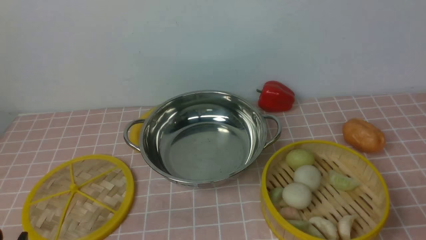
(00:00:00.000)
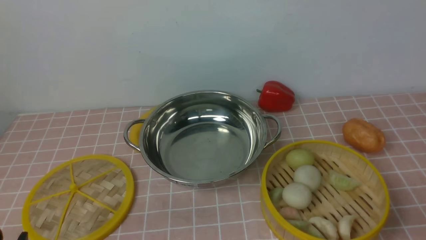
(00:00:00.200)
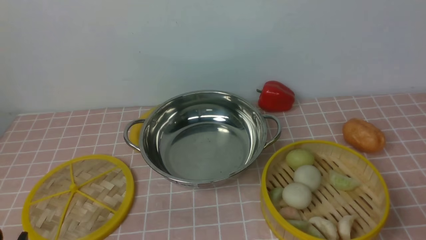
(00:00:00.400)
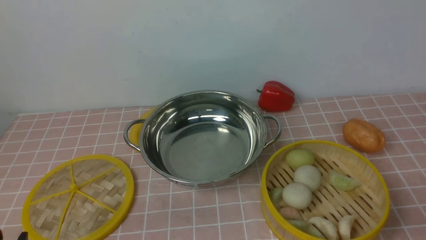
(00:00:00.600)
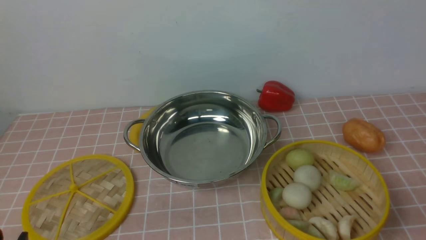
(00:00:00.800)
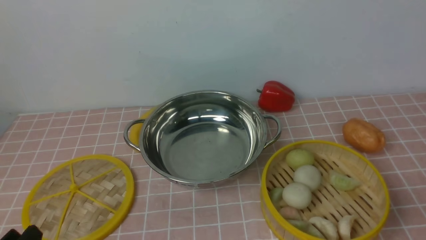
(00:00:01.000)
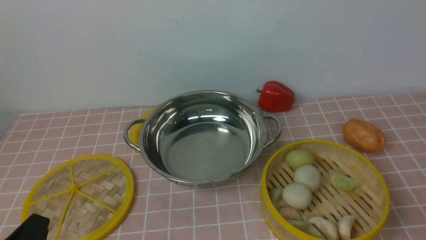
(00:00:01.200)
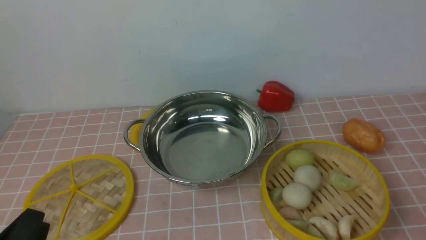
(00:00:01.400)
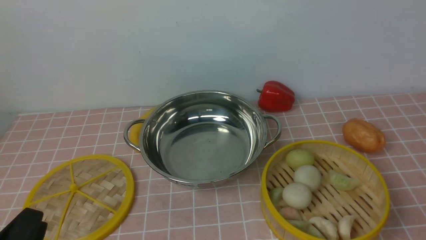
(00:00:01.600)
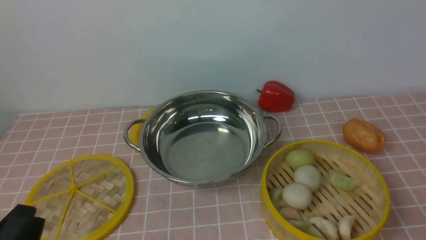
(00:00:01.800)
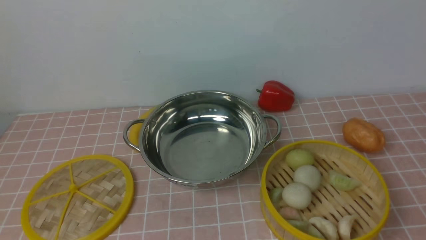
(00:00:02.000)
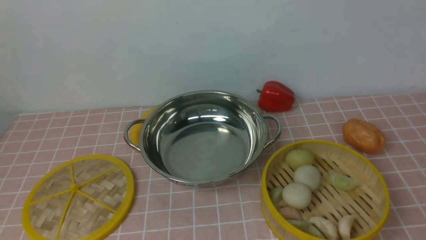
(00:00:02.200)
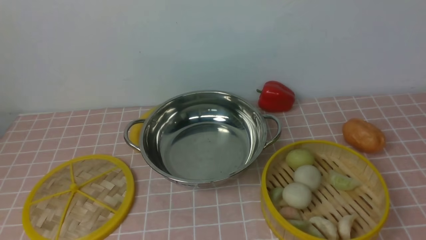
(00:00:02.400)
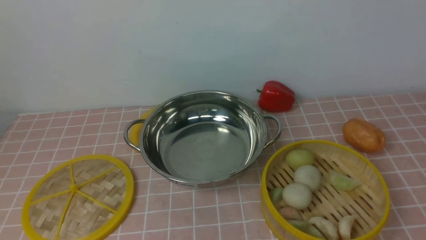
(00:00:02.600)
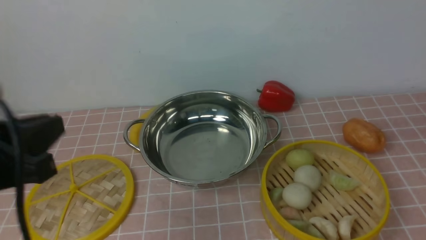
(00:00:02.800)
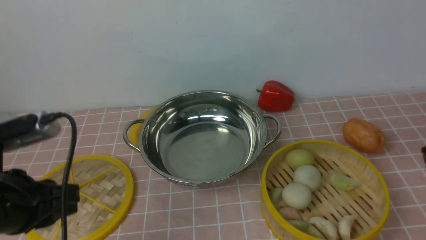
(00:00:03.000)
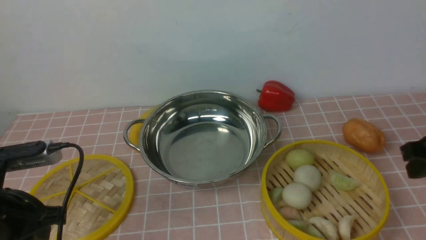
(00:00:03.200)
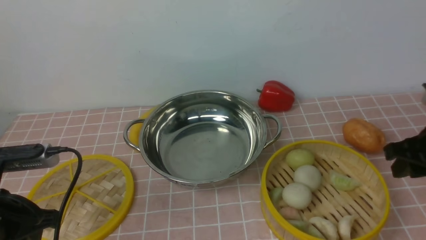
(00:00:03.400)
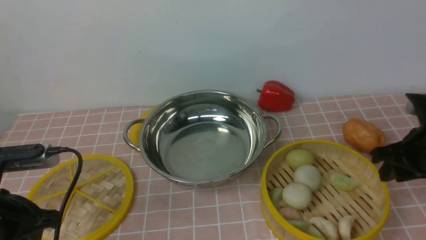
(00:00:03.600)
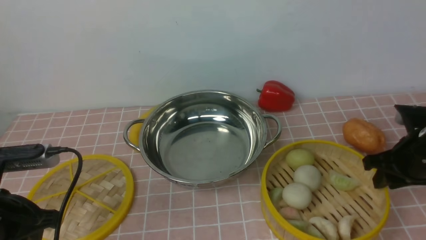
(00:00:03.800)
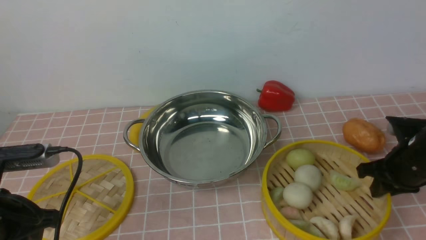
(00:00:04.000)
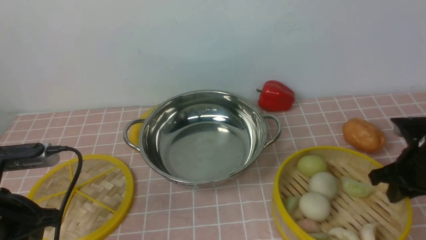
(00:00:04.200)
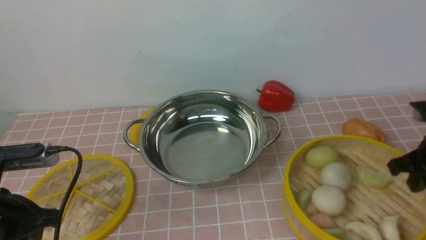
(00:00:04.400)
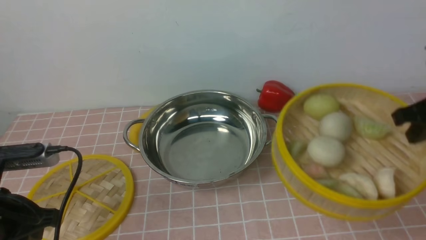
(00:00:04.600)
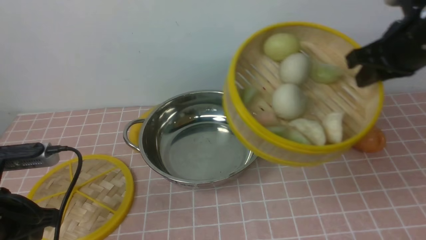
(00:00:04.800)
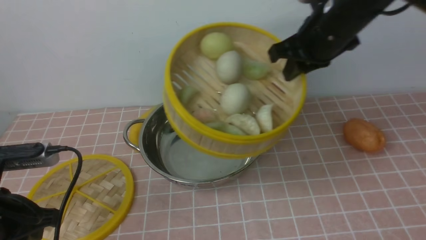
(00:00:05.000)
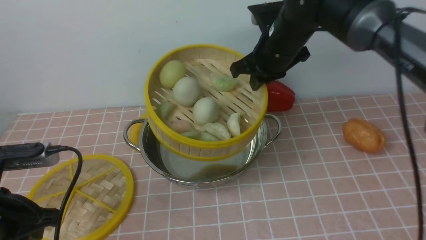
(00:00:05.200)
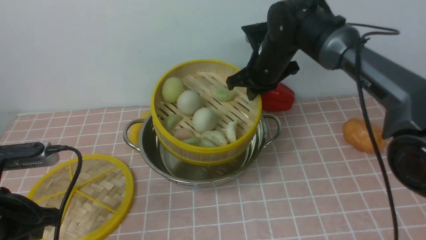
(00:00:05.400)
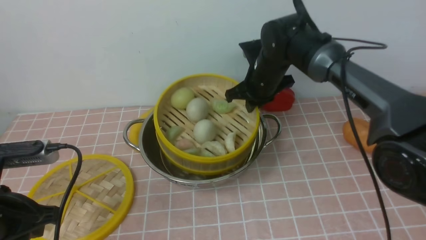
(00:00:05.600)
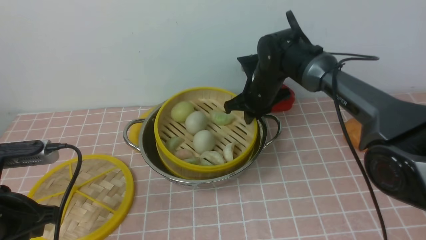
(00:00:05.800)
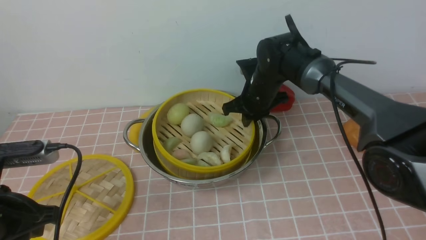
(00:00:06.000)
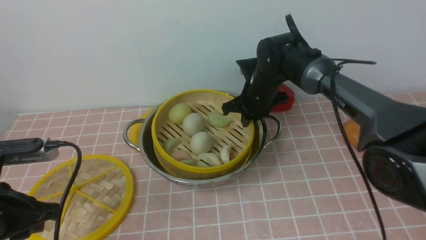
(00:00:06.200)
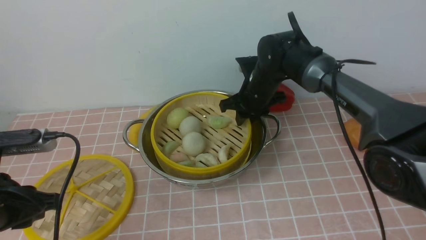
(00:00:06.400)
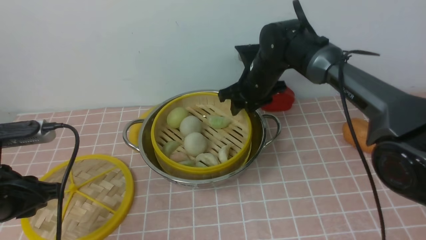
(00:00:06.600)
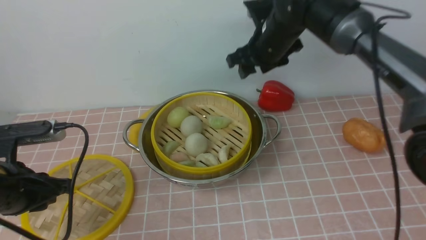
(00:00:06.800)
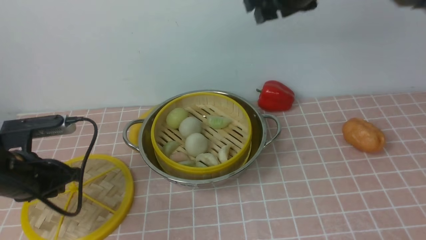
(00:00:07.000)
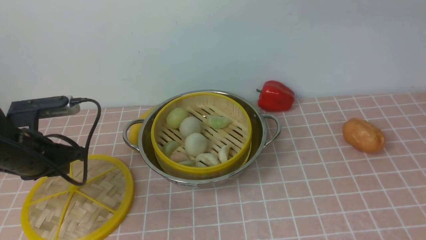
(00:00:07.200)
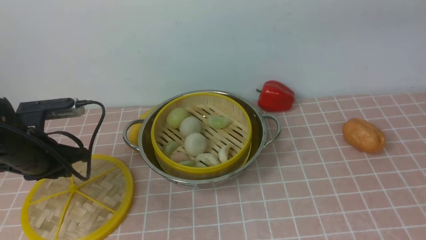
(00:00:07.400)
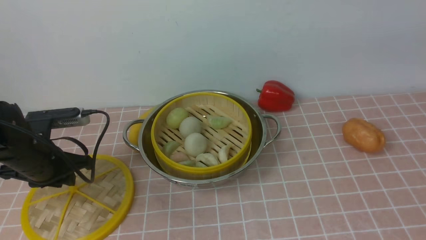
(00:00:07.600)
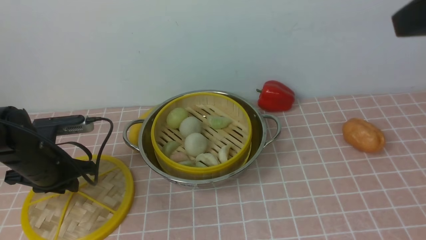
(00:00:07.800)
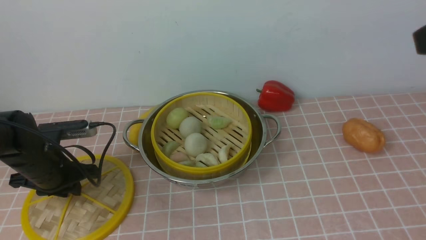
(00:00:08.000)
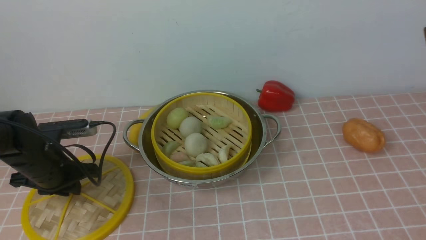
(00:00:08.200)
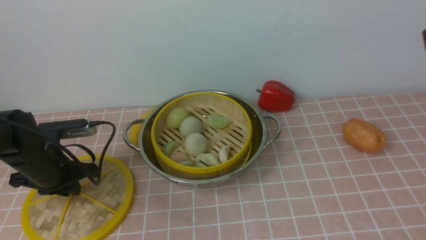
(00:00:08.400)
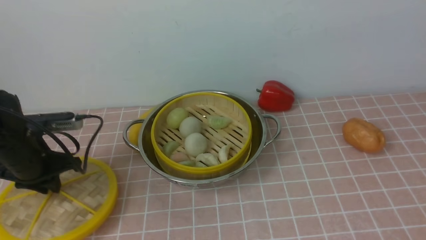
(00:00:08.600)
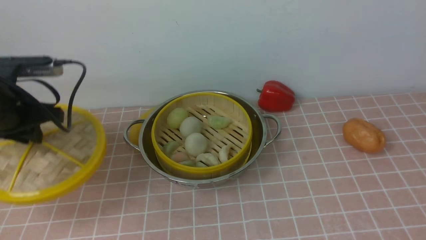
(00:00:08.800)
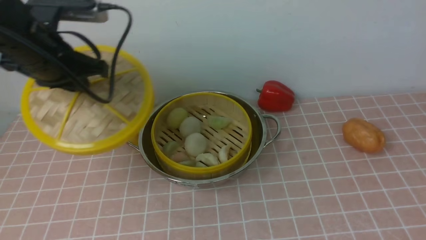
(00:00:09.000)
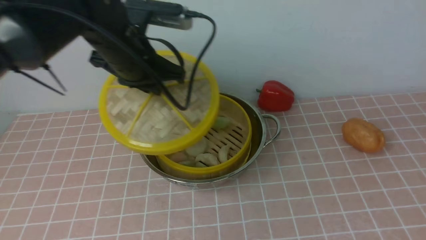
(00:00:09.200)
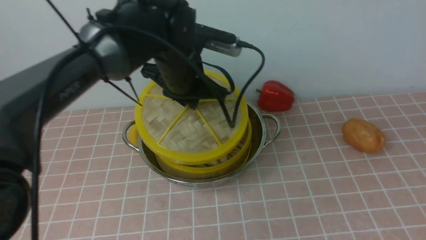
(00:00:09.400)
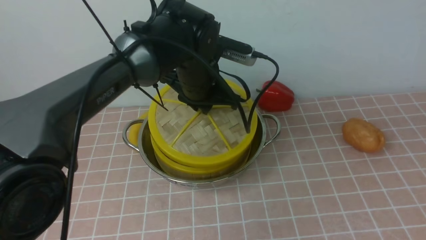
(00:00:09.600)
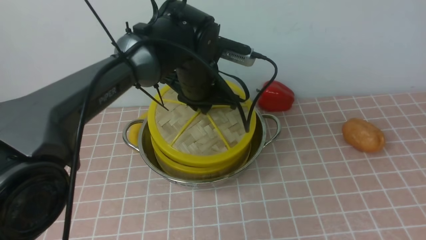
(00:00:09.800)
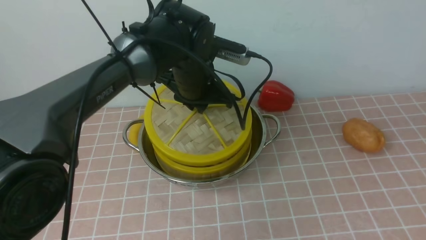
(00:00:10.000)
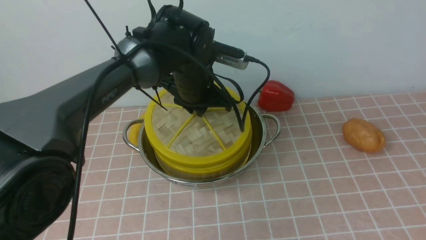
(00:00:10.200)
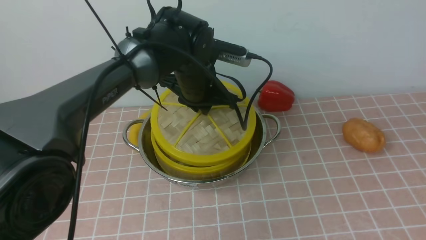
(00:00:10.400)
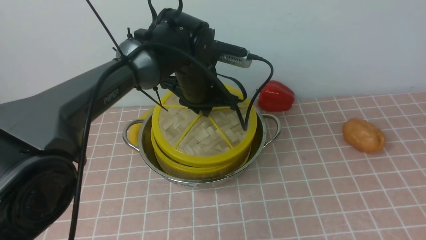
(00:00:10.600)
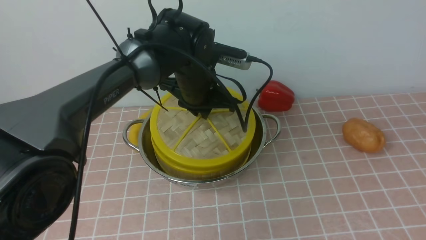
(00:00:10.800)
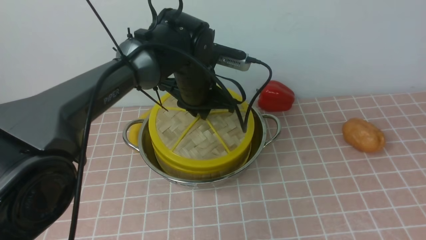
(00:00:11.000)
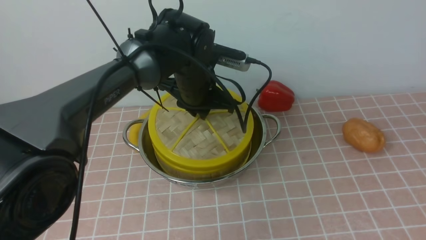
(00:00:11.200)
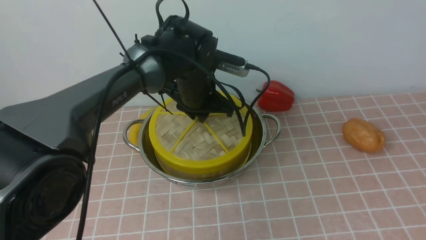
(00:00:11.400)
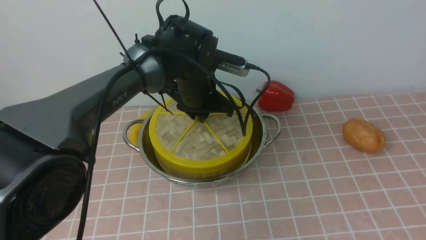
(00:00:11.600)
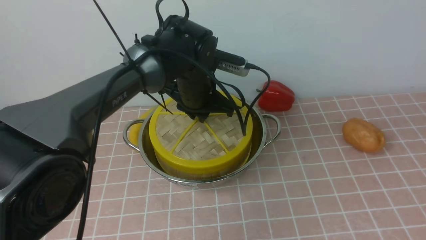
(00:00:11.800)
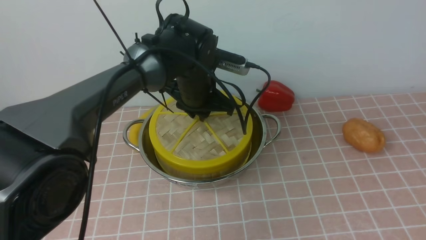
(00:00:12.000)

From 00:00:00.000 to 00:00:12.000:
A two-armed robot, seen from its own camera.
Task of the whole recording: place the steamer in the pot on the pink tablecloth, and put the lid on the steamer.
Step, from 00:00:00.000 to 00:00:04.200: use the right arm to lift the steamer closest to it.
Step, from 00:00:04.400 to 00:00:06.400: use the right arm to put the steamer into the iron steamer pot in the middle.
Step, from 00:00:06.800 to 00:00:08.400: use the left arm to lift the lid of the steamer.
From 00:00:01.600 to 00:00:03.000: The left gripper moves forward and upward, some 15 cm.
From 00:00:03.000 to 00:00:04.400: The right gripper heads downward and forward, covering approximately 15 cm, and closes, while the left gripper heads downward, covering about 5 cm.
From 00:00:04.400 to 00:00:06.000: The right gripper moves to the left and forward, some 30 cm.
From 00:00:06.000 to 00:00:07.600: The left gripper goes some 15 cm forward and downward, while the right gripper goes roughly 40 cm upward, backward and to the right, and opens its fingers.
From 00:00:07.600 to 00:00:09.000: The left gripper shifts roughly 10 cm upward, while the right gripper travels backward and to the right by approximately 15 cm.
From 00:00:09.000 to 00:00:10.400: The right gripper moves roughly 5 cm, while the left gripper goes roughly 20 cm to the right.
From 00:00:10.400 to 00:00:12.000: There are only small adjustments of the grippers.

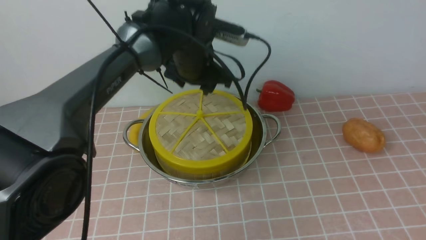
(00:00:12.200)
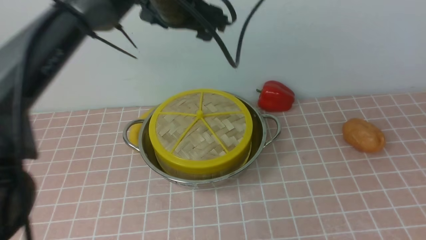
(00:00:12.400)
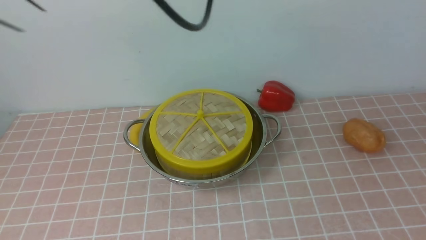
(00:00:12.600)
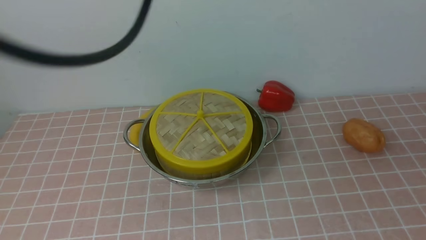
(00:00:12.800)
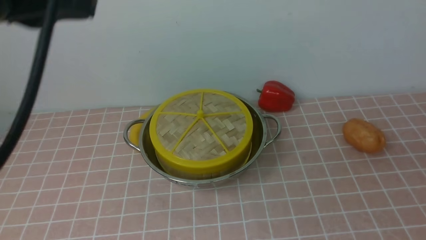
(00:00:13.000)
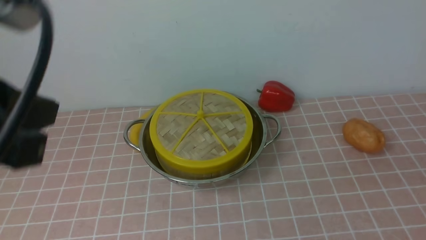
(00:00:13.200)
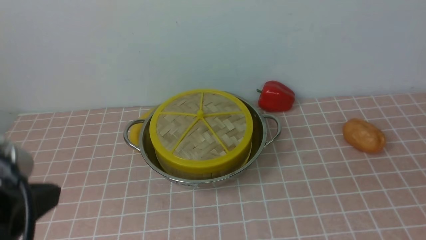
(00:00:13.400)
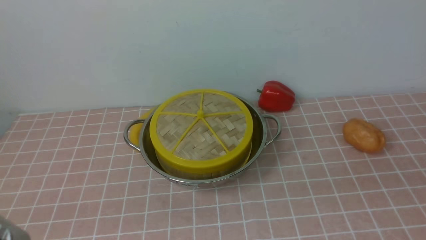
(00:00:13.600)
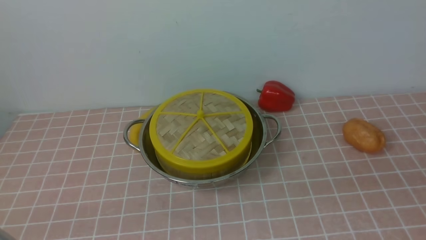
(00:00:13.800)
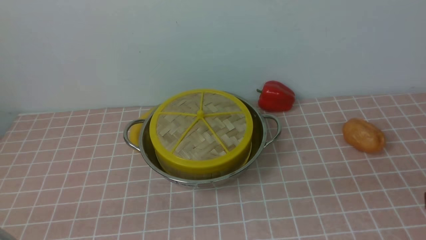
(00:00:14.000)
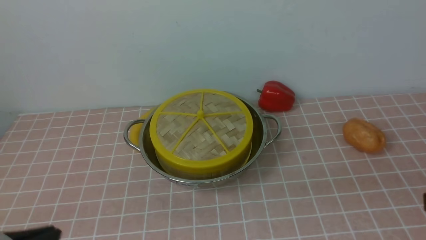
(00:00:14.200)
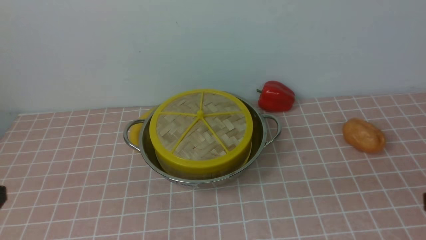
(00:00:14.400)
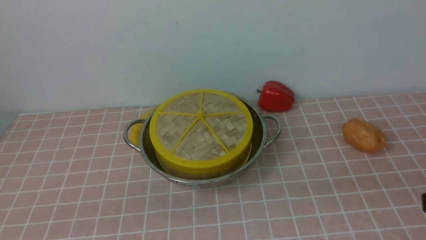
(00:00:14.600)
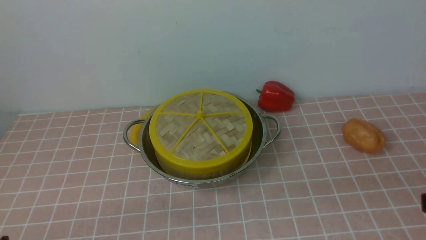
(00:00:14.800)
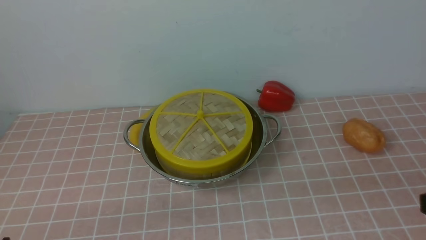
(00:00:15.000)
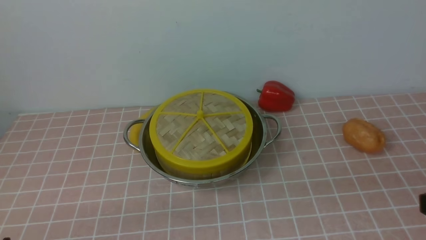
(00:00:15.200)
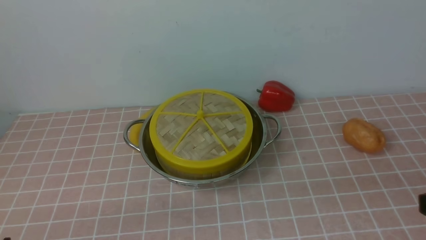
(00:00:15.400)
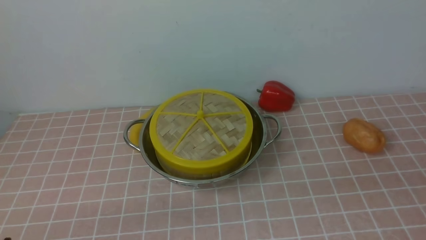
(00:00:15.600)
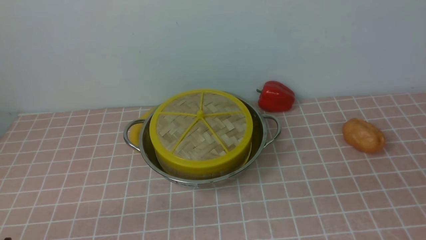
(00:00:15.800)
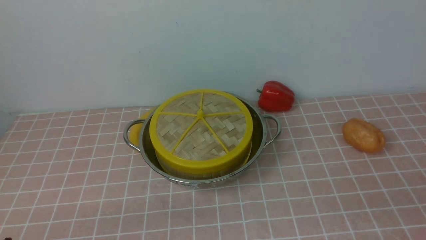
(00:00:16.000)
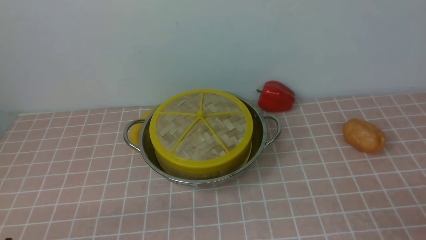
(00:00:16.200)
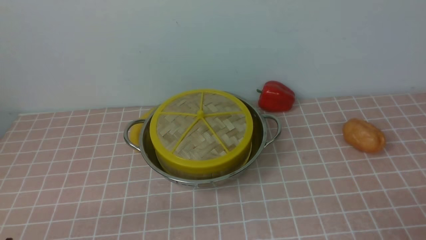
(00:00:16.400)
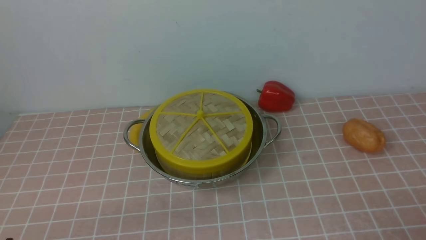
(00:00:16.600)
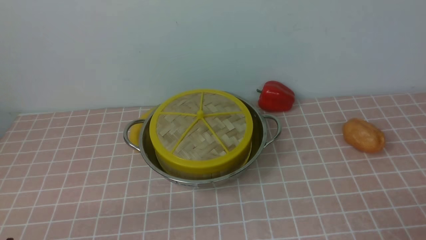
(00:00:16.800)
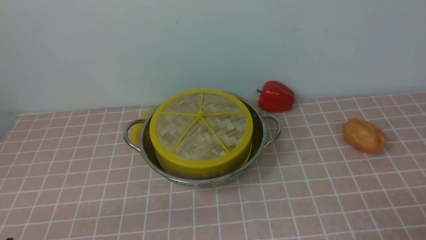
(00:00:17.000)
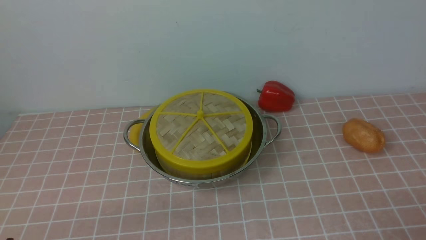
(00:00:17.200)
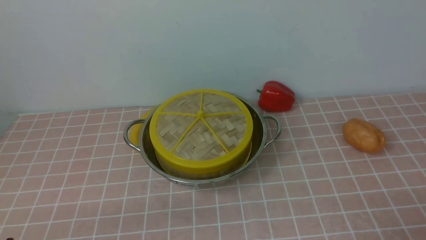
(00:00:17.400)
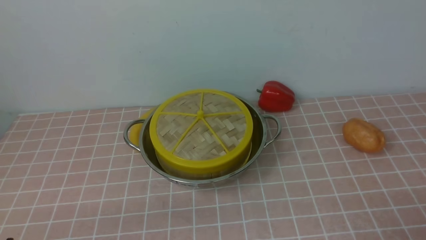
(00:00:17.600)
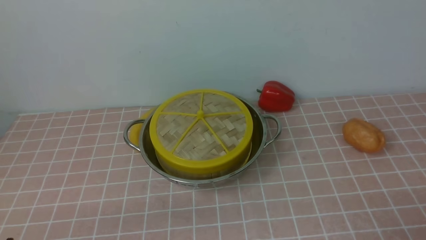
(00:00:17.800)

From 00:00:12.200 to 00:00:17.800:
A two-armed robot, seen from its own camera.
Task of the whole recording: place the steamer in the pot on the pink tablecloth, and put the lid on the steamer.
From 00:00:12.200 to 00:00:13.600: The left gripper moves backward and to the left, some 40 cm, and closes its fingers. Meanwhile the right gripper heads downward, covering some 15 cm, and closes up.
From 00:00:16.400 to 00:00:17.800: Both grippers stay about where they are.
